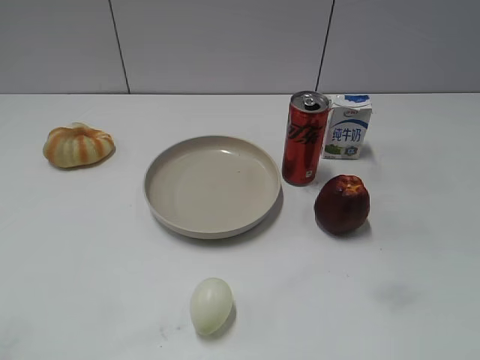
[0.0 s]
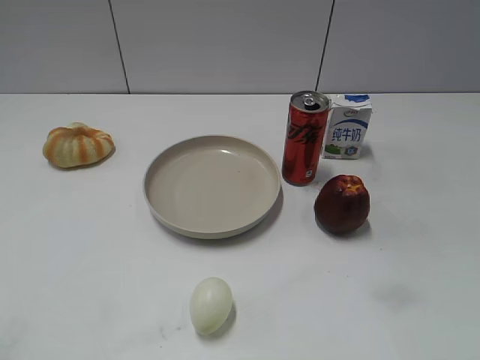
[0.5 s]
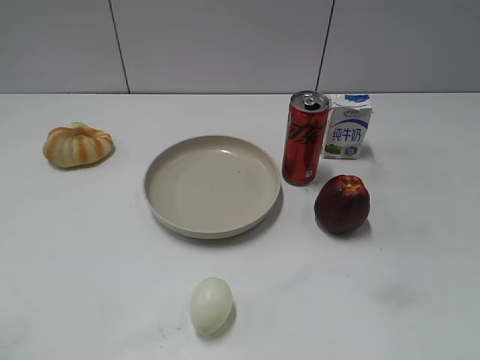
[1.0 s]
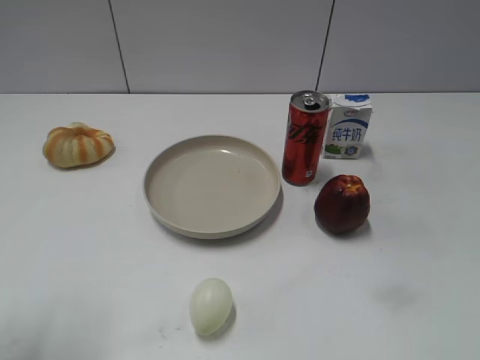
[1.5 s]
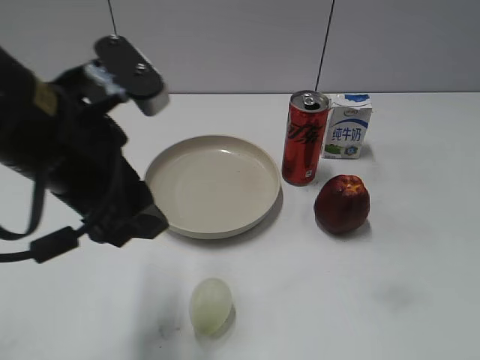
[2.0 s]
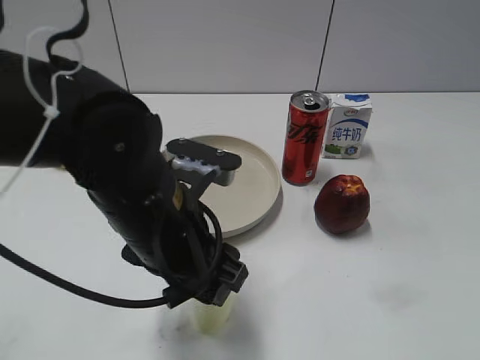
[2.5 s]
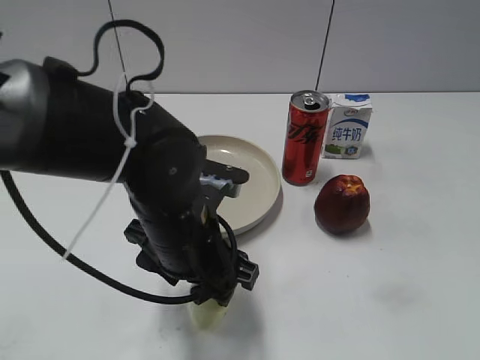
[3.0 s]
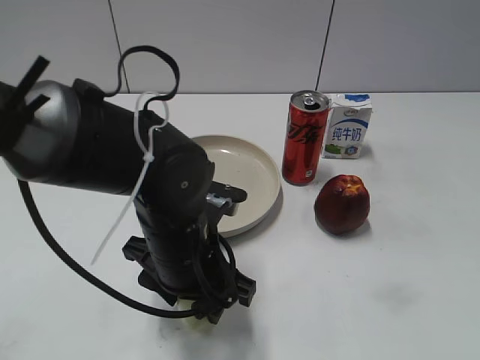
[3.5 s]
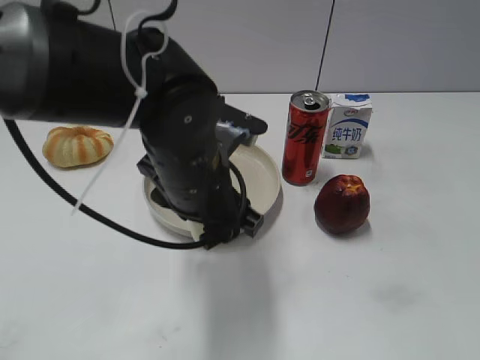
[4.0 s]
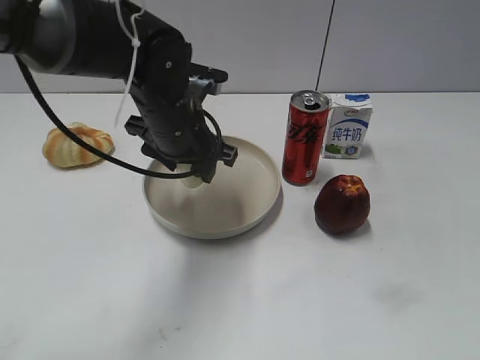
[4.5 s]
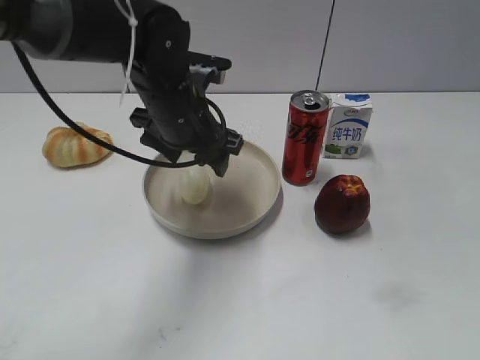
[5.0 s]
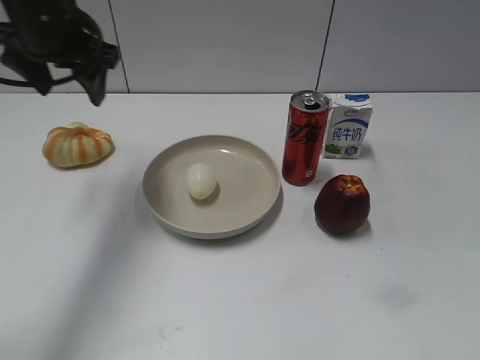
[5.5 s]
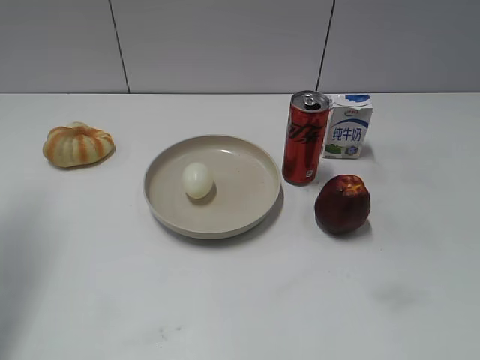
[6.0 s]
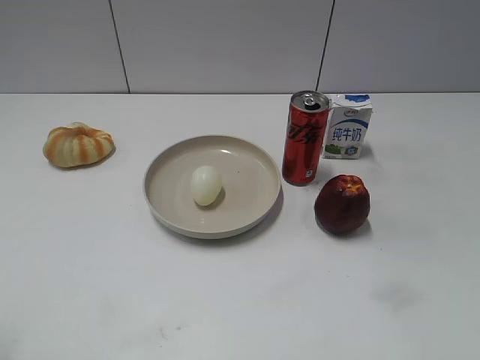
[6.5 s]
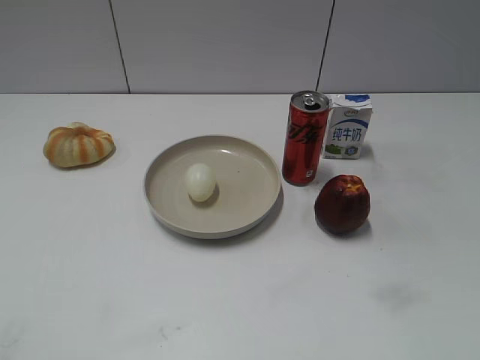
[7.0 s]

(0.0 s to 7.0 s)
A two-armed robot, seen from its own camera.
Step, 1.0 s - 3.0 s: Grasp the egg with left gripper.
Step, 4.0 s - 5.0 s: Place the egg on the plate with left gripper.
2.0 s - 3.5 s: The left gripper is displaced downward and to the right by roughly 15 cm, and closes.
3.5 s - 5.0 s: The left gripper goes some 15 cm forward and upward, and opens up.
5.0 s - 7.0 s: The left gripper is displaced backward and to the left by about 40 cm.
